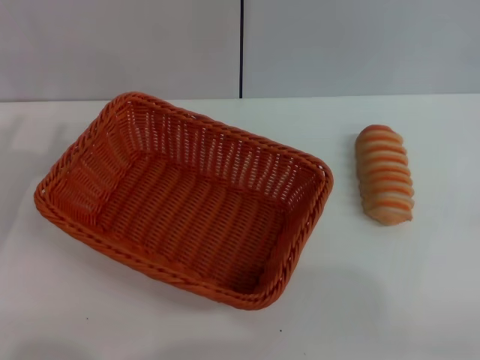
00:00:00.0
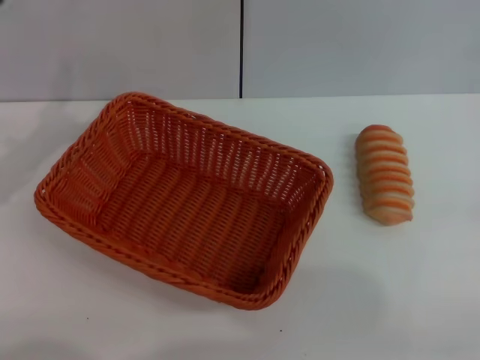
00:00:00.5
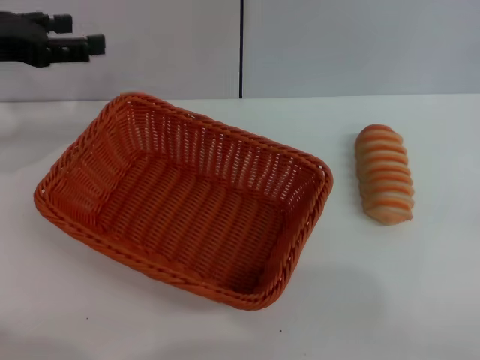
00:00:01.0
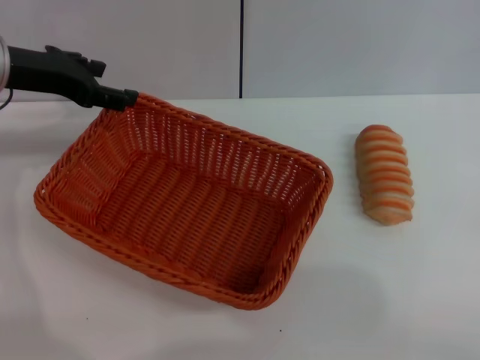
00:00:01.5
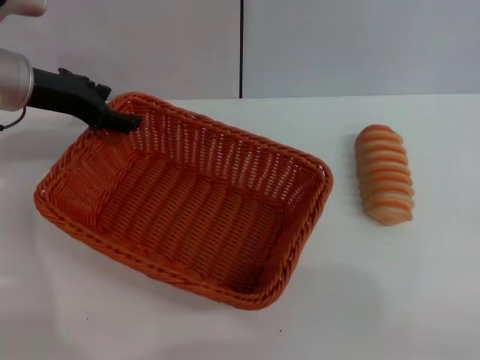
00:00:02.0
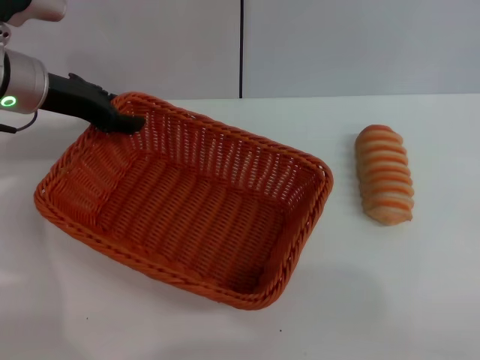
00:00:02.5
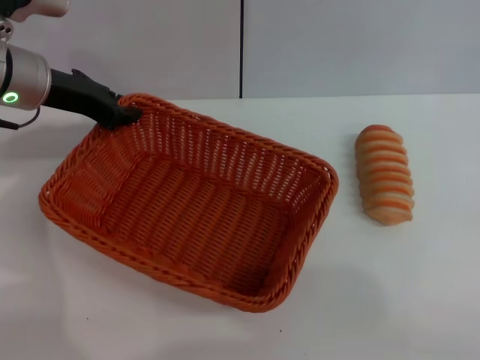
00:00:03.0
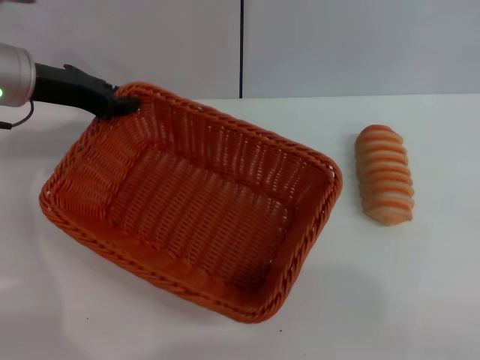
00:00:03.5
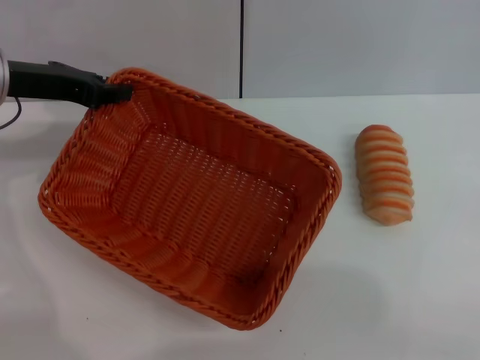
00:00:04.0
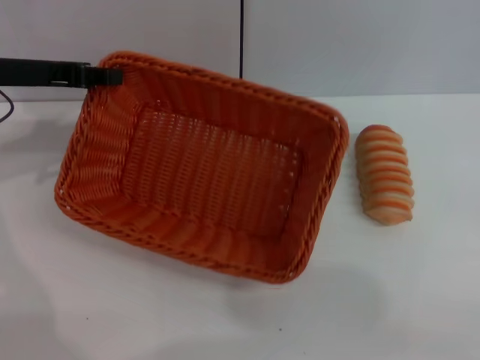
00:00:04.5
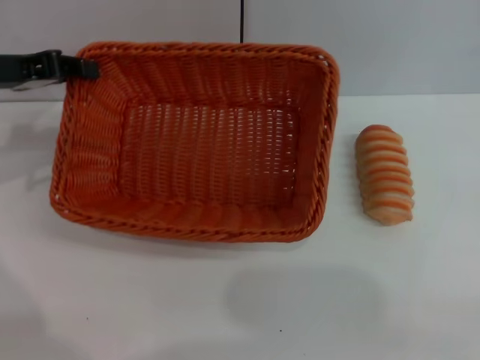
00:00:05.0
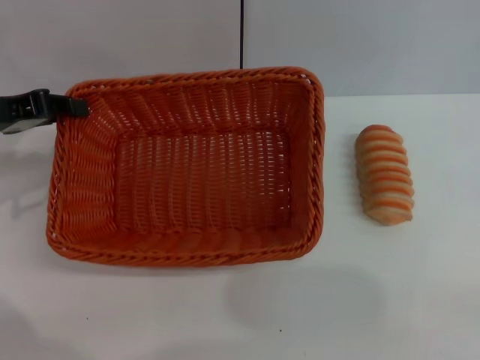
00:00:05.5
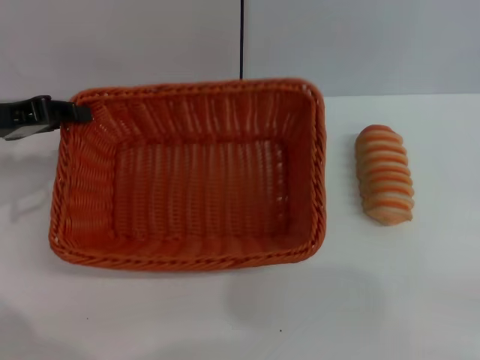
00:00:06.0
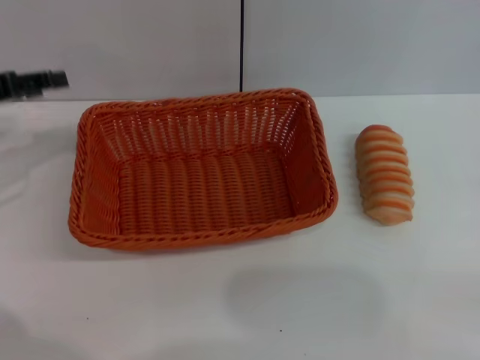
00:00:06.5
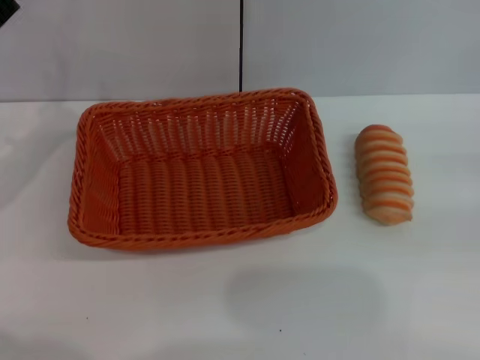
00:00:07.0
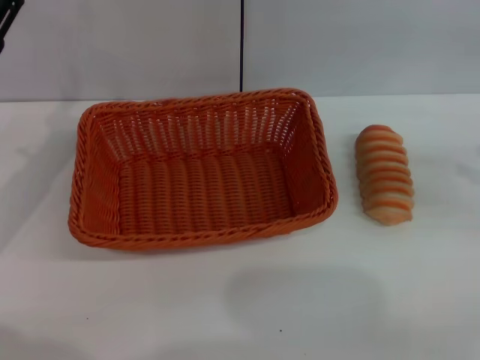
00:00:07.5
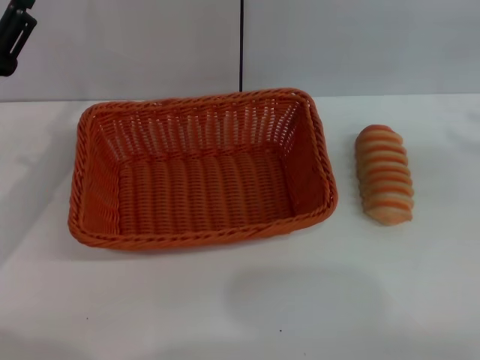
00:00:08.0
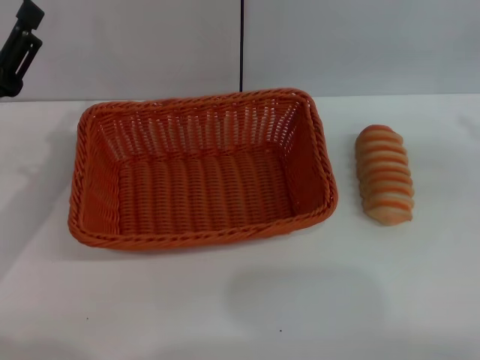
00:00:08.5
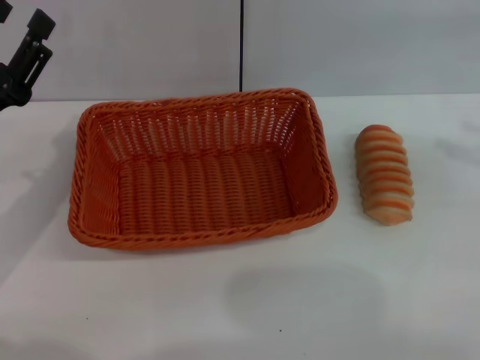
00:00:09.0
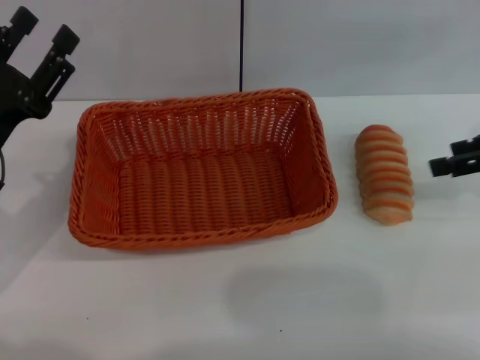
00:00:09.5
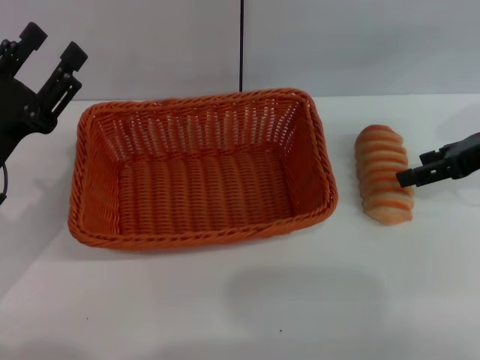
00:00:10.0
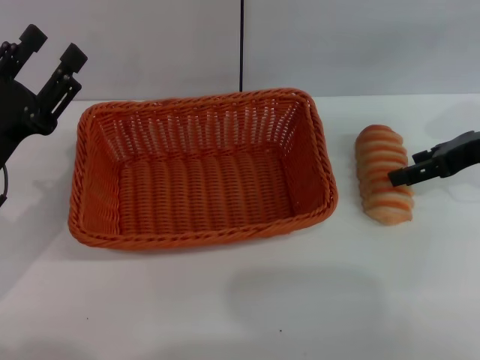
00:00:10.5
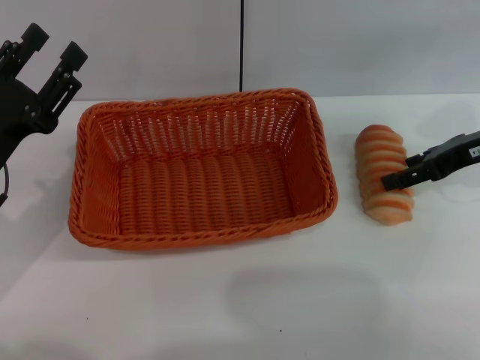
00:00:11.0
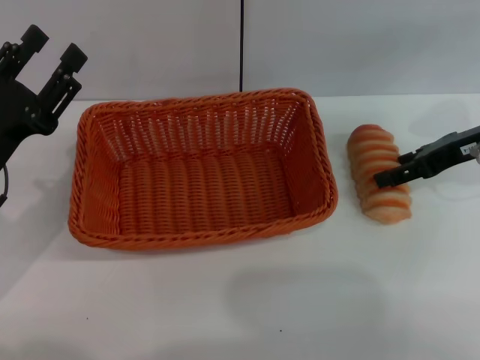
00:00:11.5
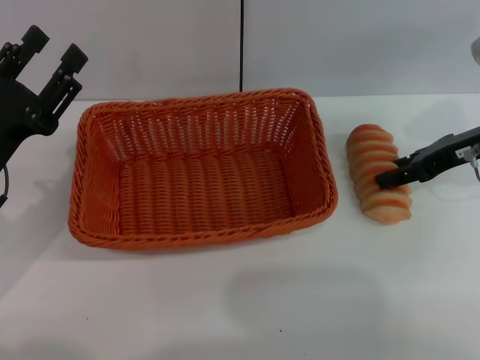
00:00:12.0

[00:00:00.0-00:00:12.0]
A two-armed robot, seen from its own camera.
Step, 00:00:00.0 to 00:00:05.0: Pick up the light basket with the left gripper.
Step, 00:00:05.5 to 00:00:06.5: Place the light basket in the center of view with the left gripper.
00:00:00.0 to 00:00:02.0: The left gripper is displaced forward and upward by about 20 cm.
00:00:02.0 to 00:00:04.0: The left gripper closes up.
00:00:04.0 to 00:00:06.0: The left gripper shifts by roughly 5 cm.
00:00:06.0 to 00:00:08.0: The right gripper shifts roughly 15 cm upward and forward. The left gripper shifts approximately 5 cm backward, and opens its fingers.
00:00:08.0 to 00:00:10.0: The right gripper travels to the left, forward and downward by approximately 15 cm.
00:00:10.0 to 00:00:12.0: The grippers move only a little.

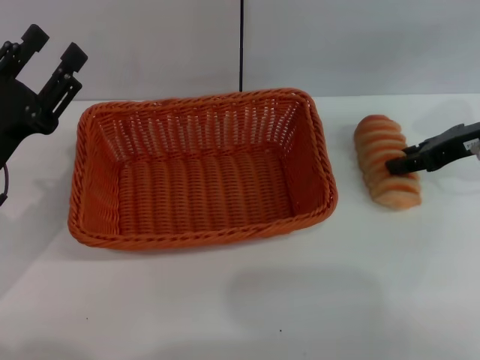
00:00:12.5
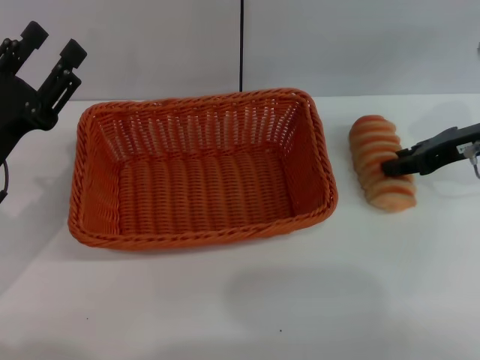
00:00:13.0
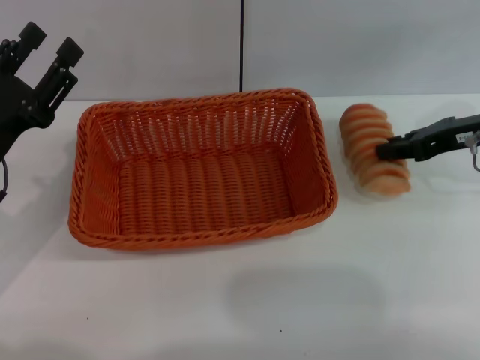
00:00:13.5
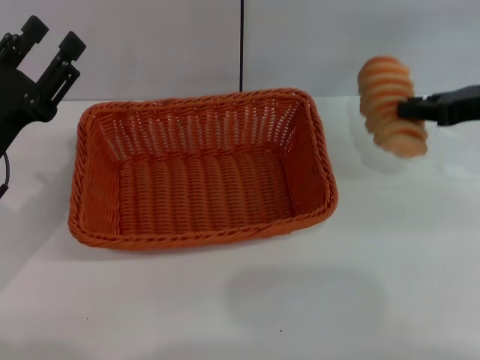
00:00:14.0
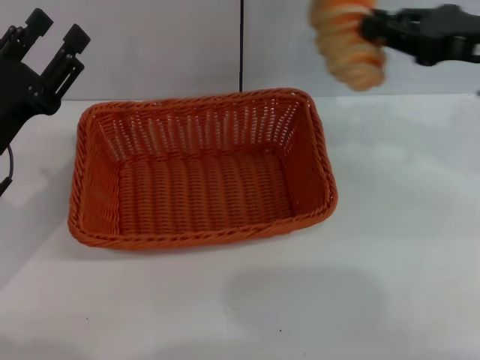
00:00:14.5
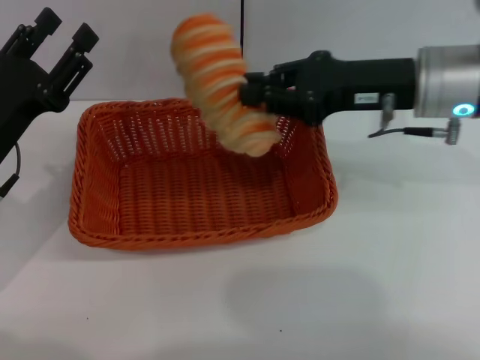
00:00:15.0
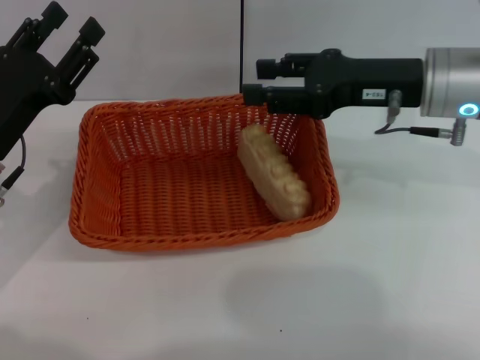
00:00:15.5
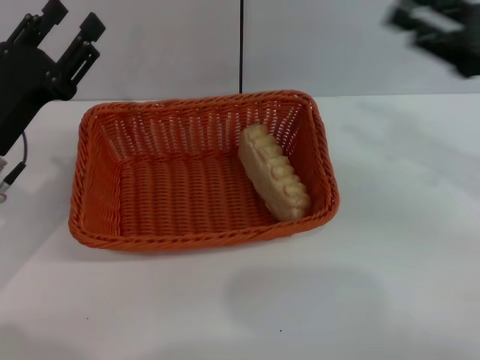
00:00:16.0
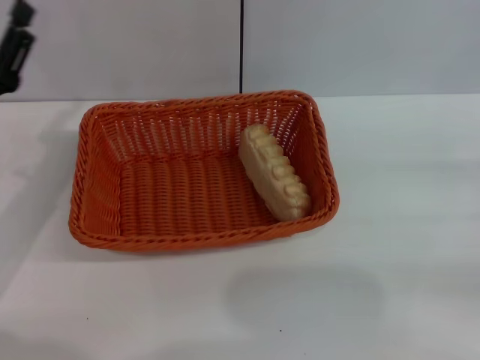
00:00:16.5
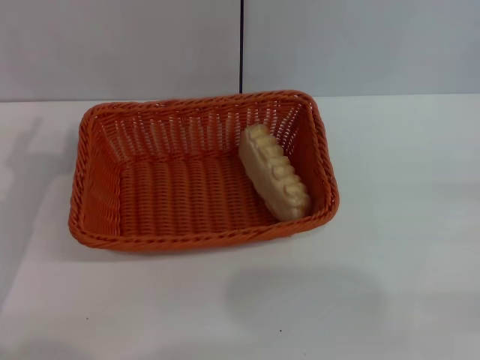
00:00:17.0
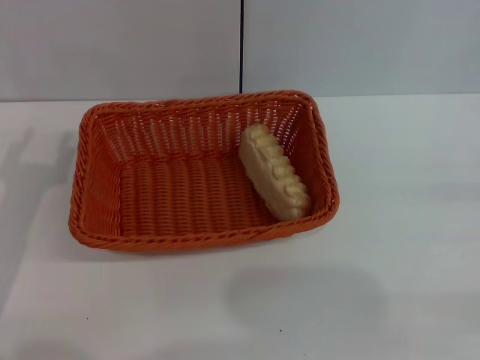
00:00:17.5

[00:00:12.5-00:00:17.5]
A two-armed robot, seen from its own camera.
Step, 00:00:14.0 to 00:00:15.0: Place the long bread into the light basket with the right gripper.
00:00:12.5 to 00:00:15.0: The right gripper heads to the left, covering about 10 cm, and closes.
00:00:15.0 to 00:00:17.5: The left gripper travels backward by about 5 cm, while the right gripper is displaced to the right and backward by approximately 30 cm, and opens up.

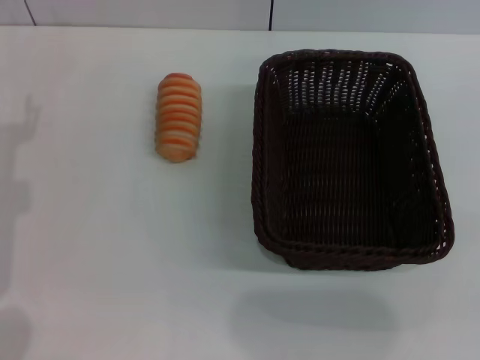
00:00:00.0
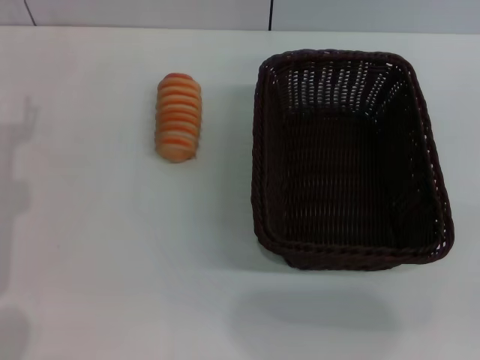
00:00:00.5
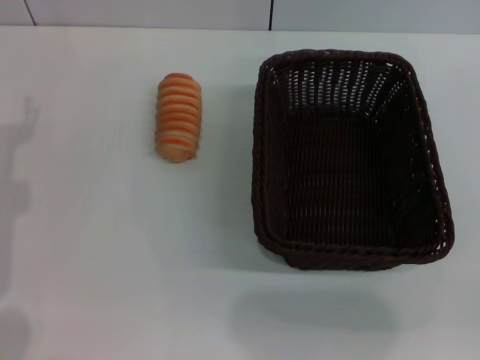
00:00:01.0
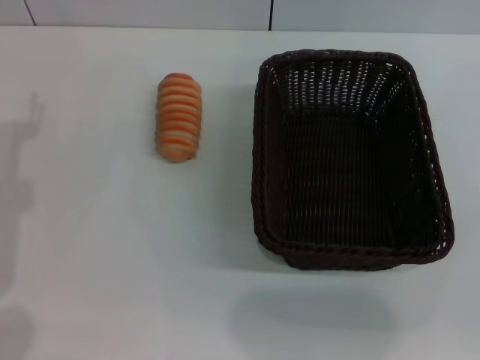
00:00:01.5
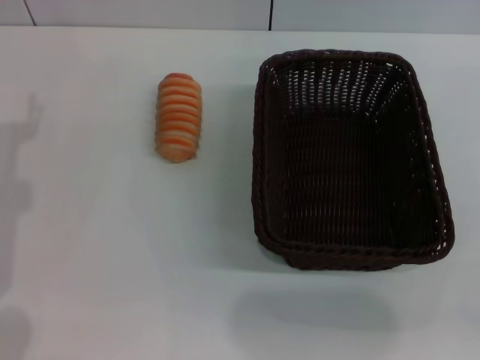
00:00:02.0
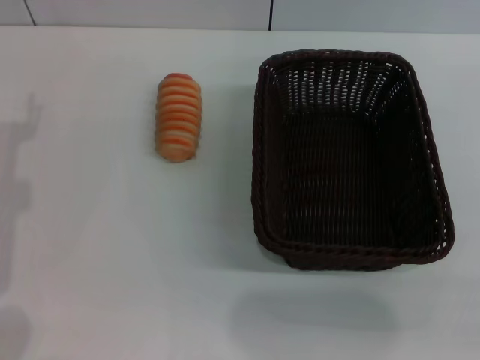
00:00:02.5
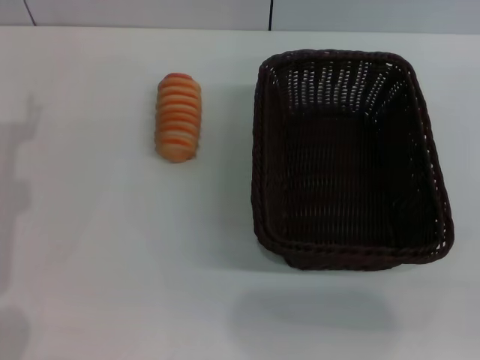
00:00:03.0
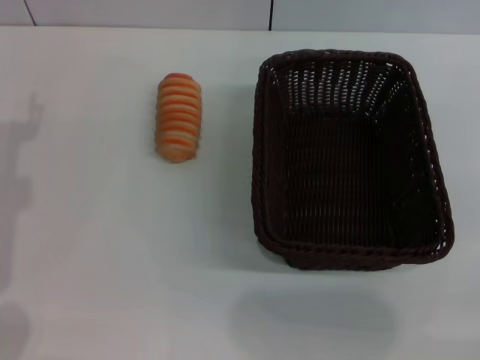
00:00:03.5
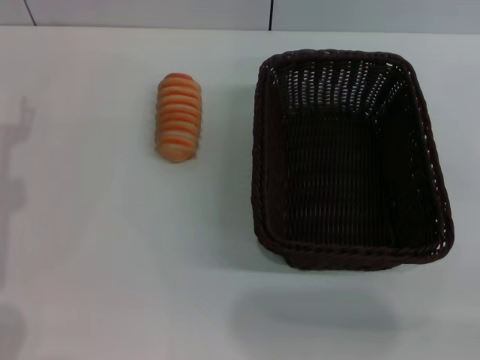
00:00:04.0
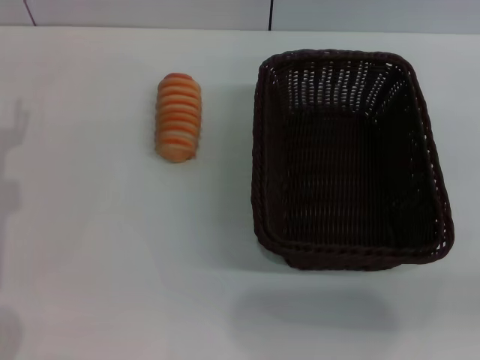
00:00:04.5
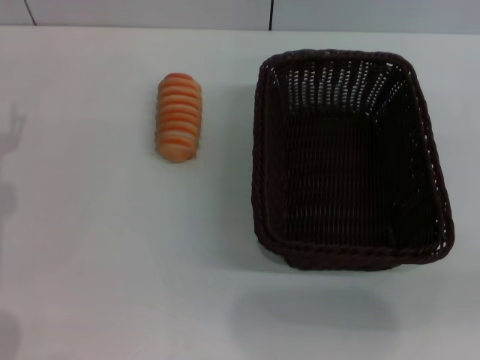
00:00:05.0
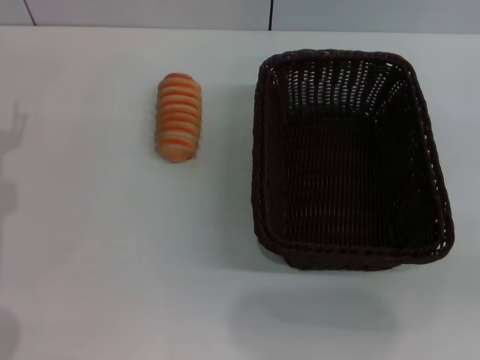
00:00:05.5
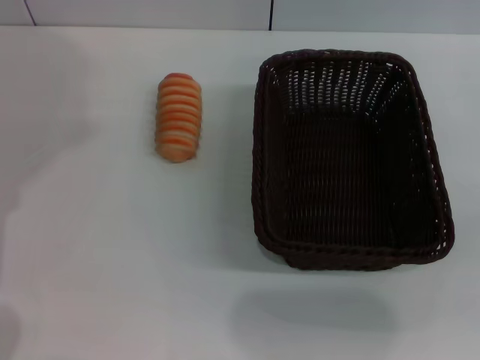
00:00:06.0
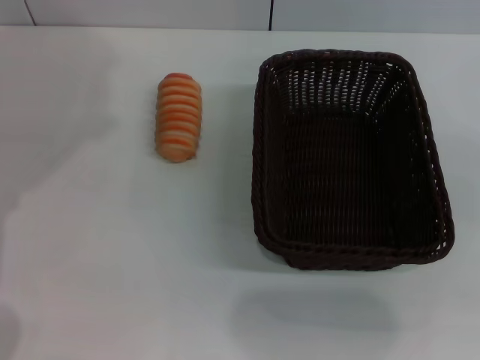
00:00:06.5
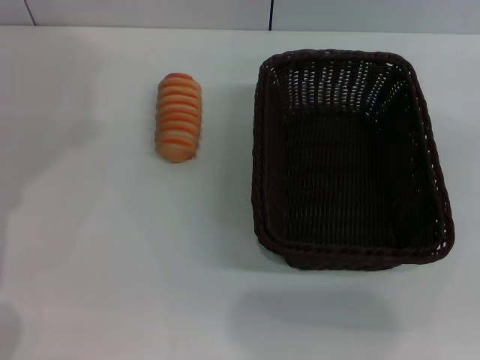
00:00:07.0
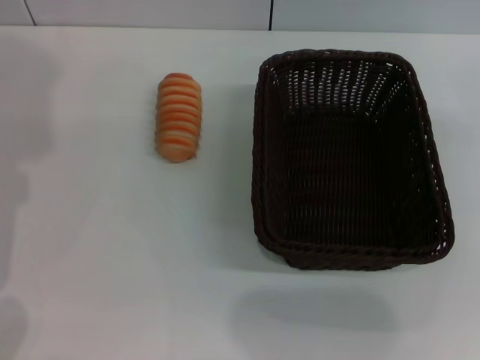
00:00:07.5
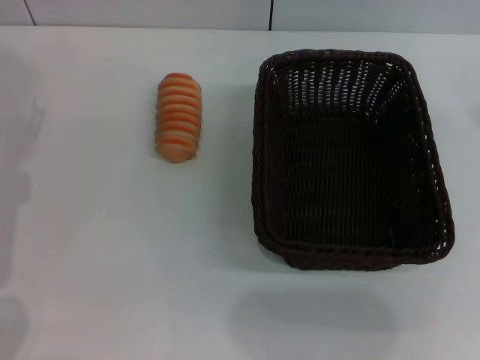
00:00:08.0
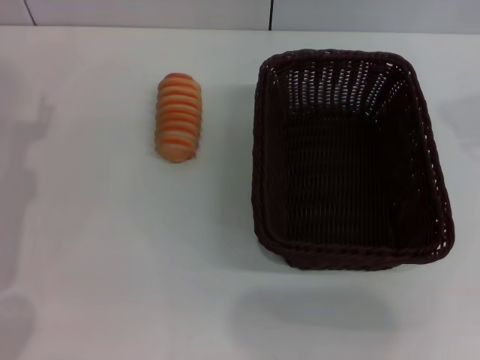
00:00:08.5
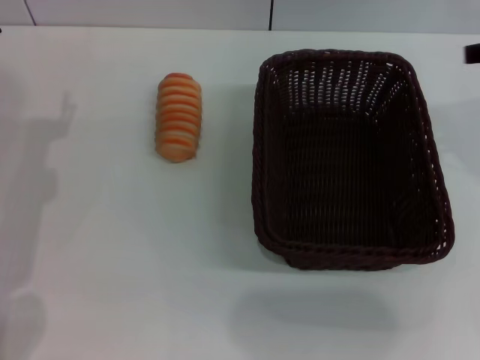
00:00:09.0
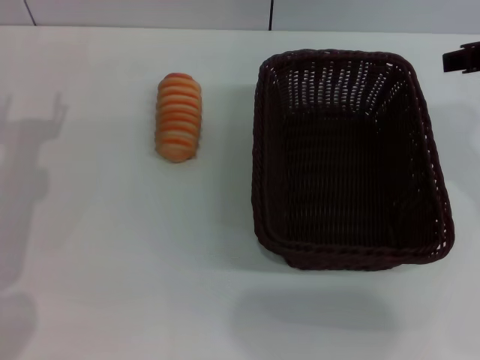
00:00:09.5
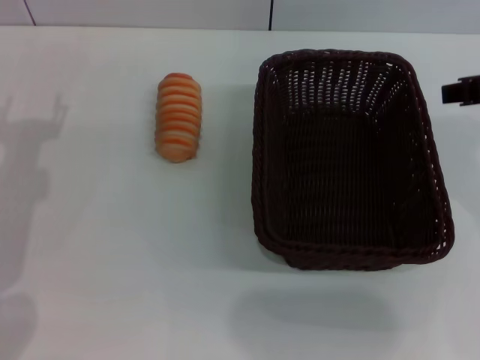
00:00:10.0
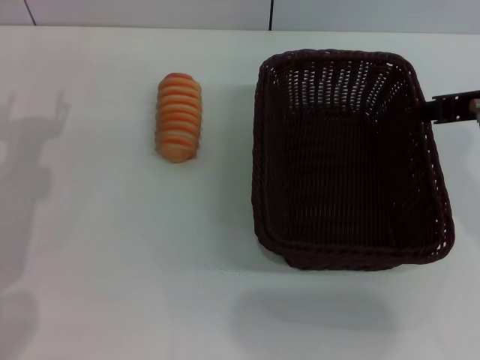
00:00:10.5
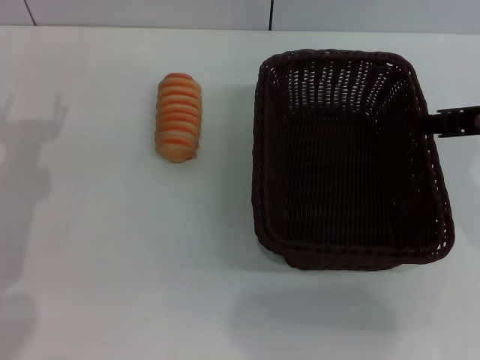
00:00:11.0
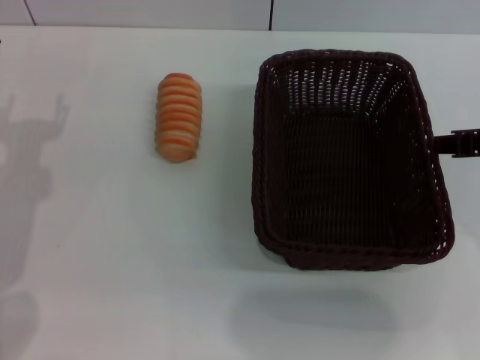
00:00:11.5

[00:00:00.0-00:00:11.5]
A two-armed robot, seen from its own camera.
00:00:09.5 to 00:00:11.5: The right gripper shifts by approximately 5 cm.
